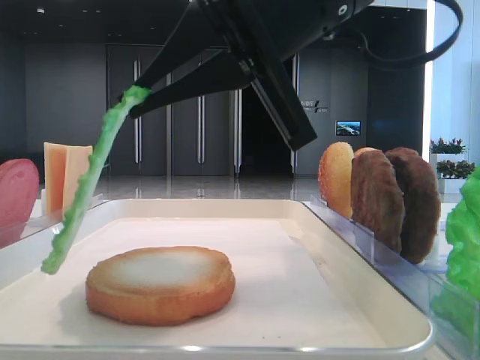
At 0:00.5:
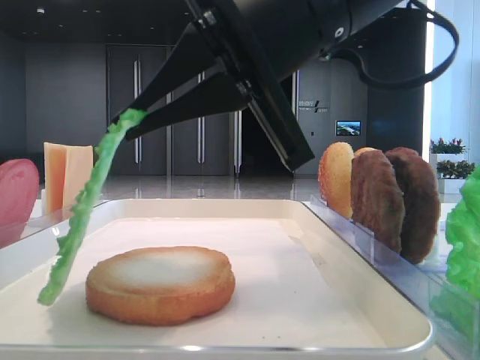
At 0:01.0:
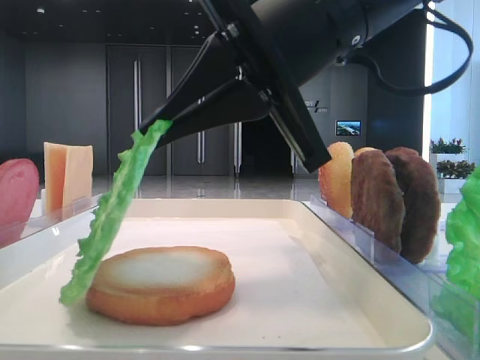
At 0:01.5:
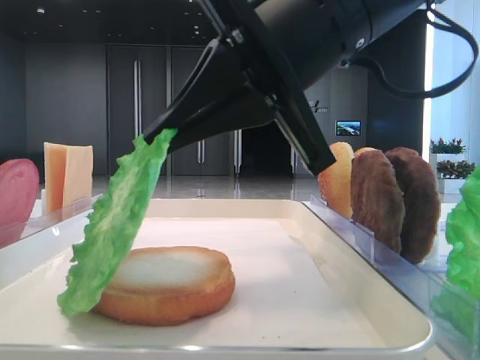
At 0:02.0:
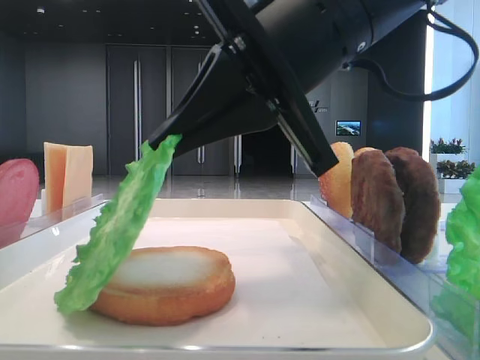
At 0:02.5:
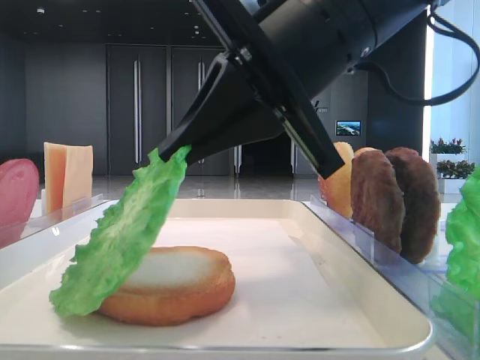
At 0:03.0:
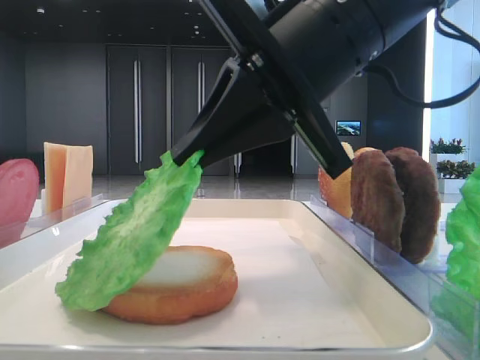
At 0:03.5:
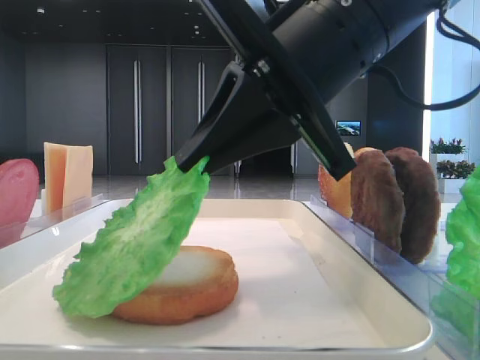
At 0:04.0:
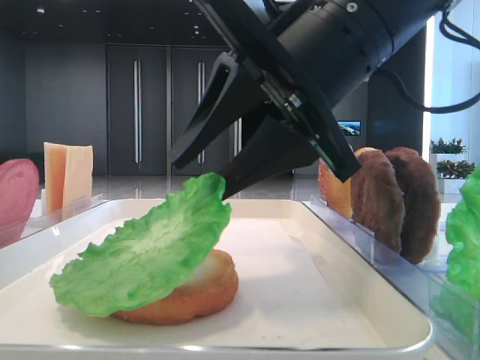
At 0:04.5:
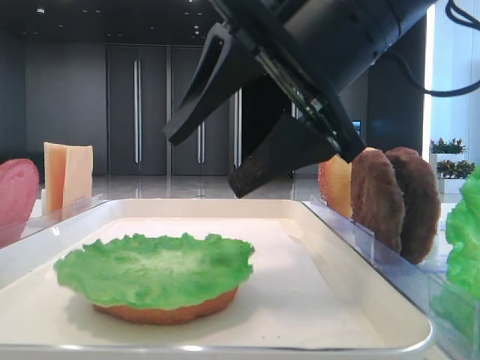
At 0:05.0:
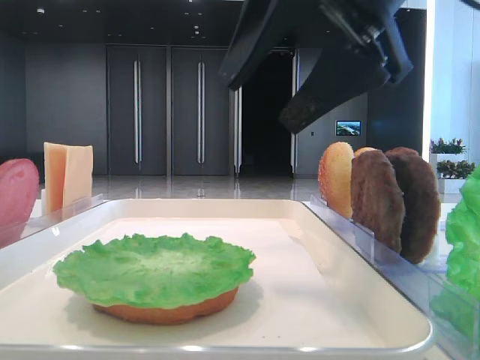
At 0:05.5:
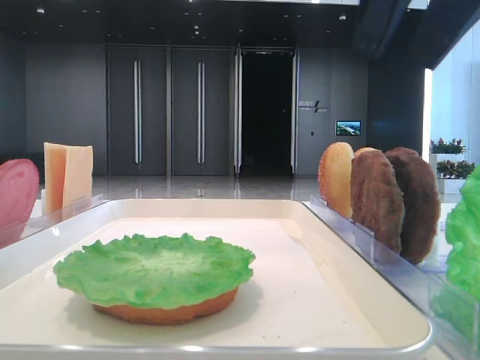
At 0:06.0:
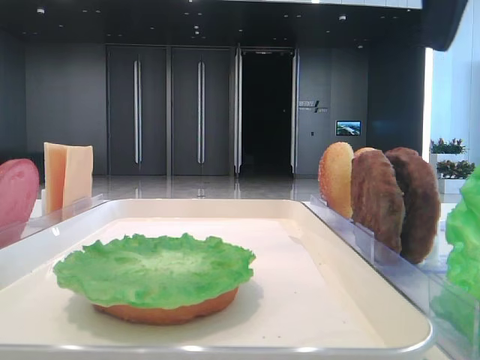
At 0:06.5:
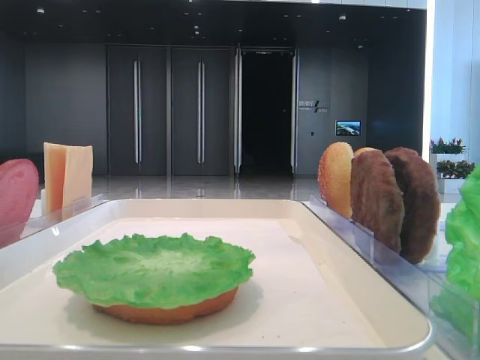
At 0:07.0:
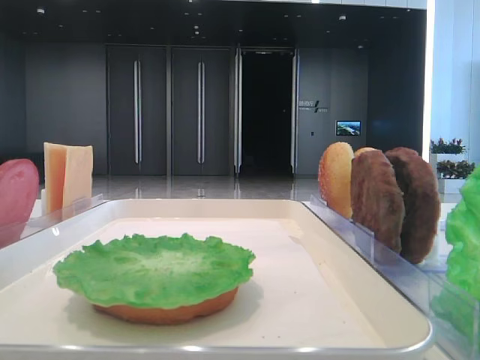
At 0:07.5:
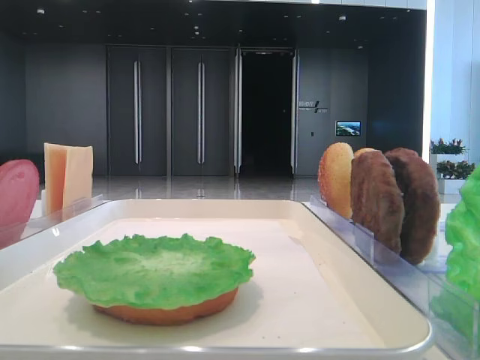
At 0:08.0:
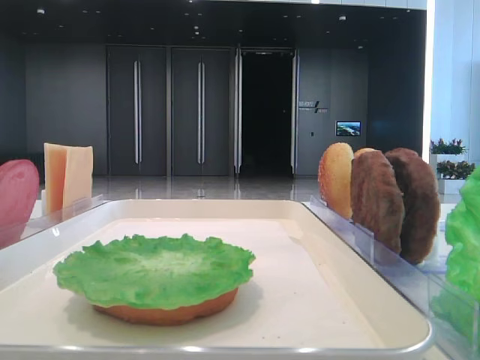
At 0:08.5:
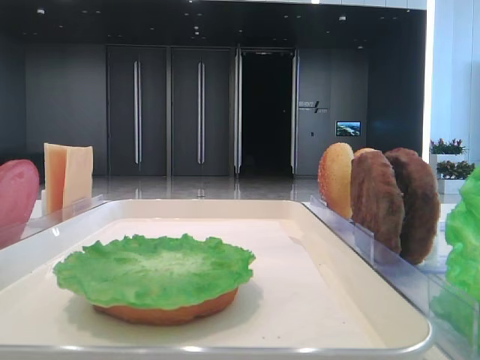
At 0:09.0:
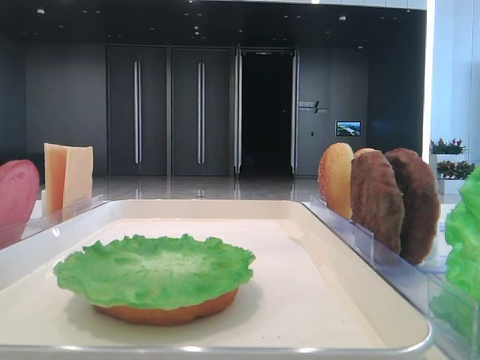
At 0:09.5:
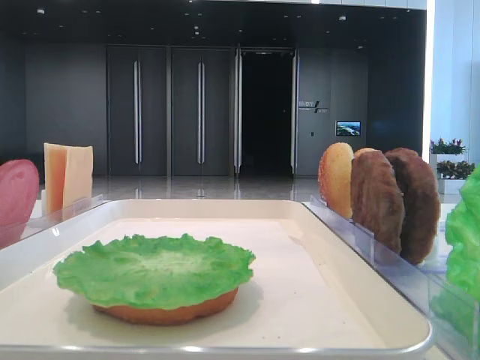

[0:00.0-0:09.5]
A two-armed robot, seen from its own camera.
Step, 0:00.0 to 0:04.0: Place the lettuce leaf on the bottom bread with the right hand.
0:00.0 to 0:02.0: The grippers stay close to where they were, moving slightly.
0:02.0 to 0:04.0: The right gripper opens its fingers.
0:04.0 to 0:05.5: The right gripper travels upward and to the right by approximately 15 cm, and opens up.
0:05.5 to 0:07.5: The right gripper heads to the right, backward and upward, covering about 25 cm.

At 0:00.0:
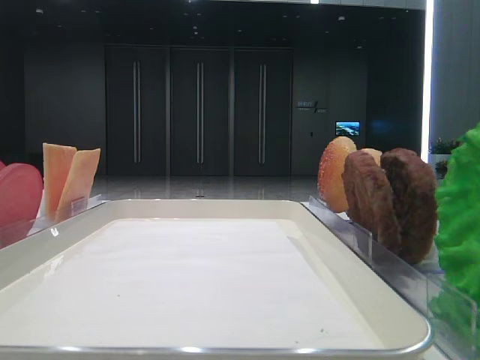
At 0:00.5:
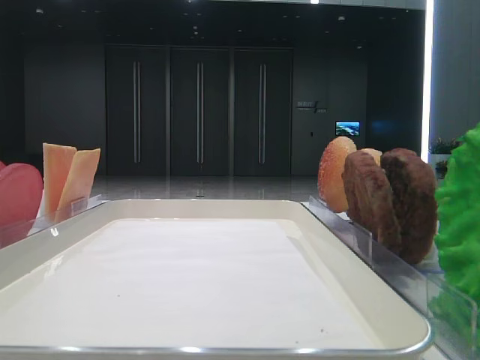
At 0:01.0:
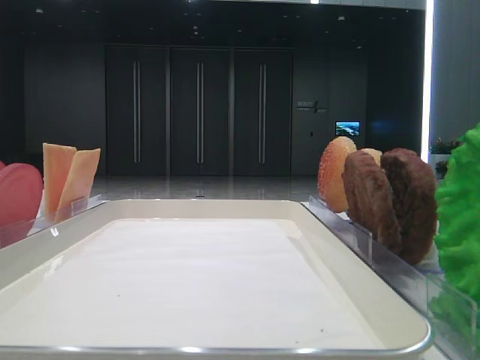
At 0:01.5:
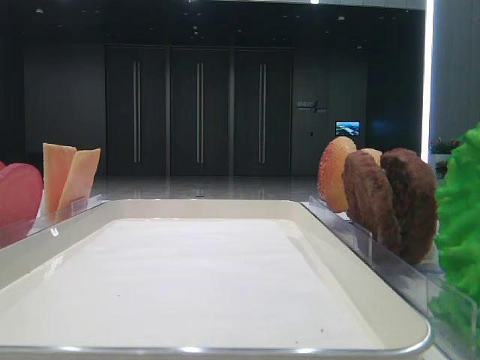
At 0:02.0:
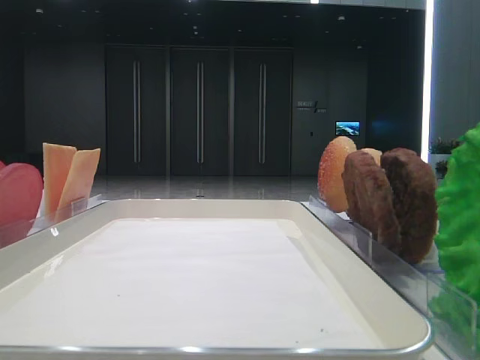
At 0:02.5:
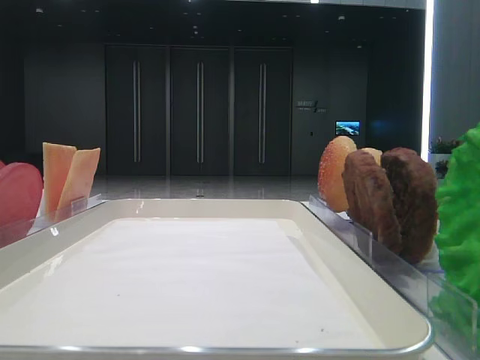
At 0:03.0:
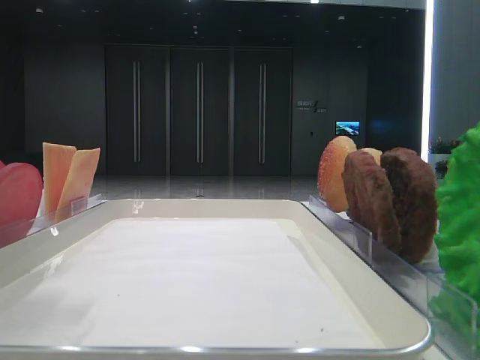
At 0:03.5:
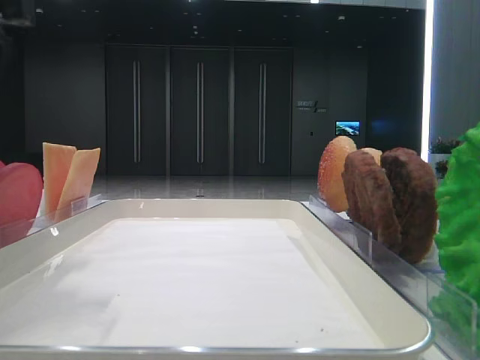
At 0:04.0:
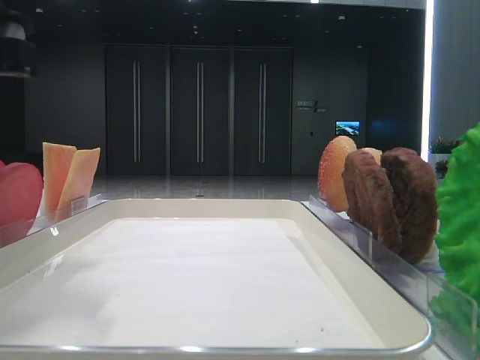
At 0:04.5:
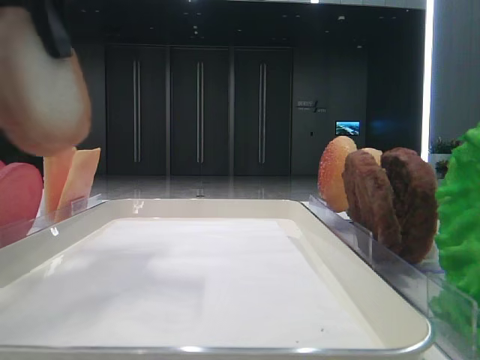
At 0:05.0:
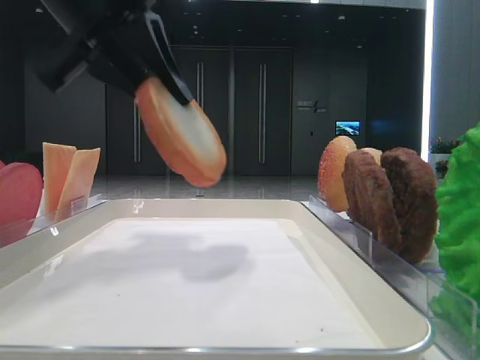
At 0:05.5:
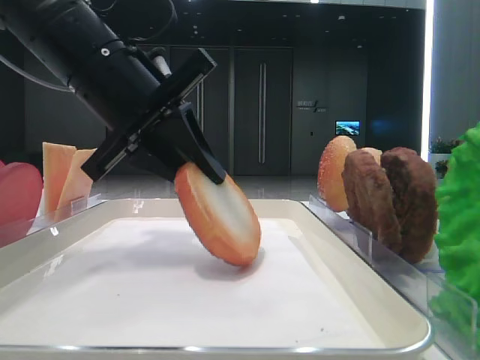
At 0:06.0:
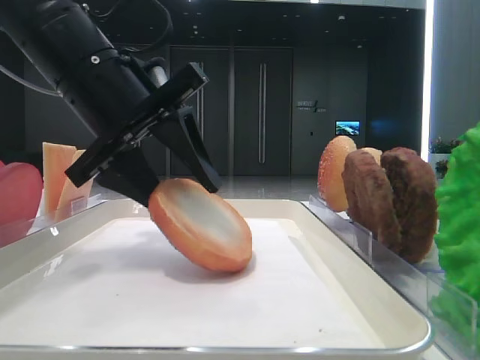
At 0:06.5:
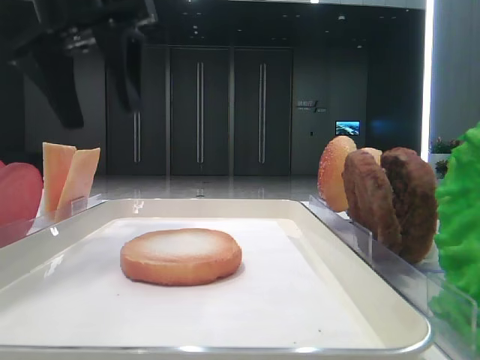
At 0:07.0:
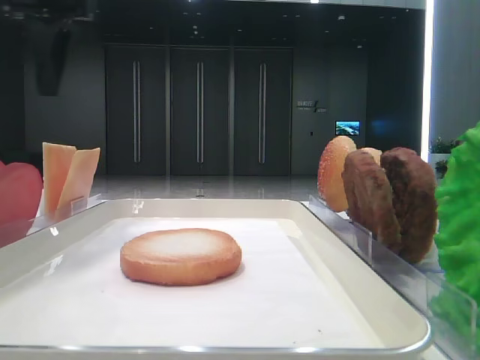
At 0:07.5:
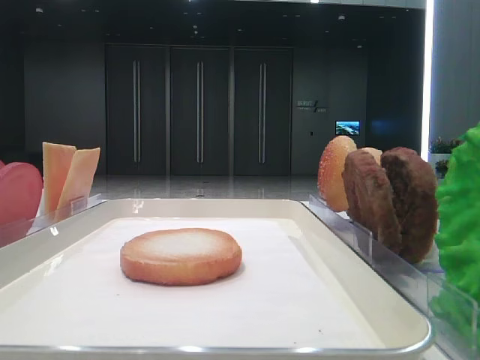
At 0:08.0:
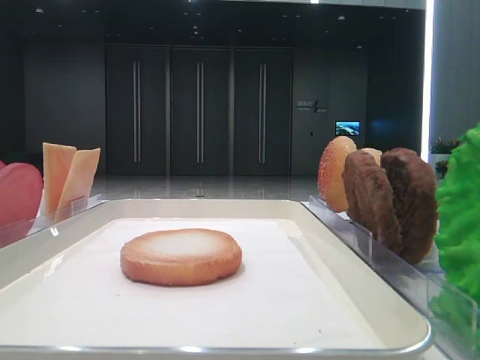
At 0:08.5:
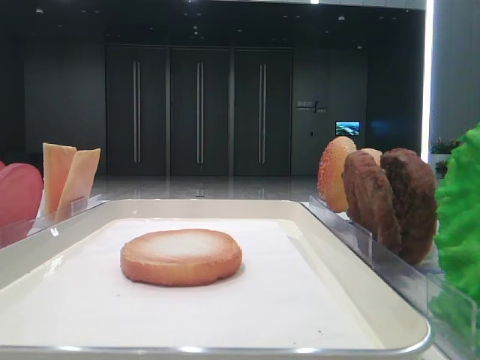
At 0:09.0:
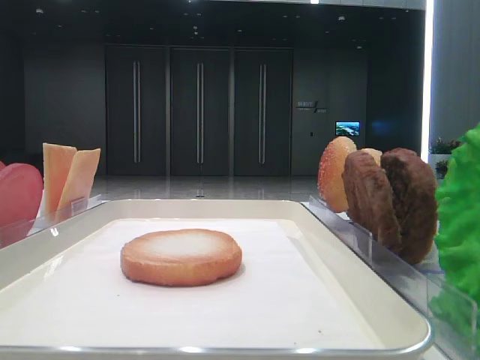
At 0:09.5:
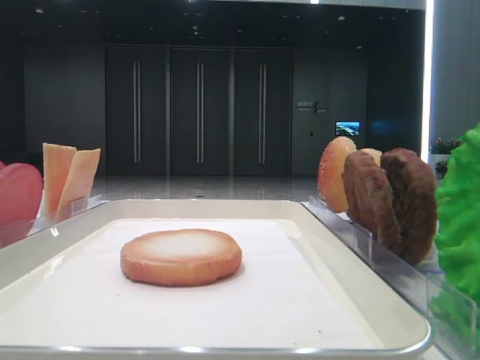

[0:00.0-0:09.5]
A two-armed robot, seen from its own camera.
Step, 0:00.0 to 0:03.5: Pick up the bottom bread with the left hand.
Step, 0:04.5 to 0:06.0: Place the bread on the tray with the left hand.
0:02.0 to 0:04.0: The left gripper is displaced to the right, forward and downward by some 20 cm, and closes its fingers.
0:04.0 to 0:05.5: The left gripper travels forward and to the right by some 10 cm.
0:05.5 to 0:07.5: The left gripper heads to the left and upward, covering roughly 25 cm, and opens its fingers.
